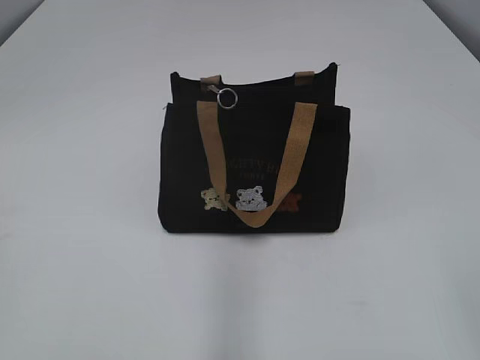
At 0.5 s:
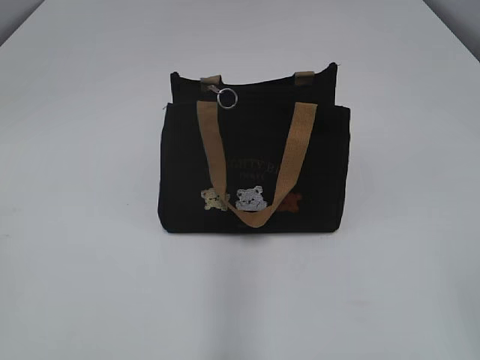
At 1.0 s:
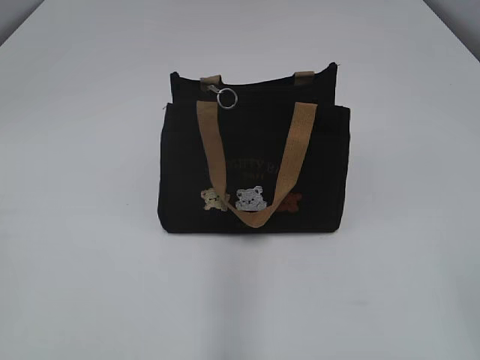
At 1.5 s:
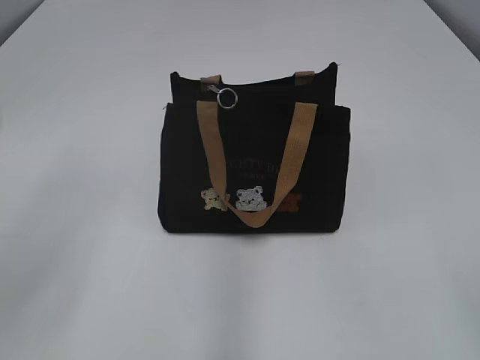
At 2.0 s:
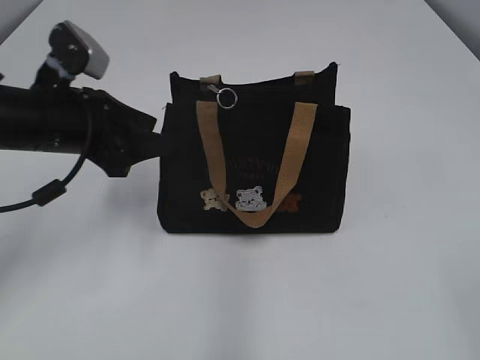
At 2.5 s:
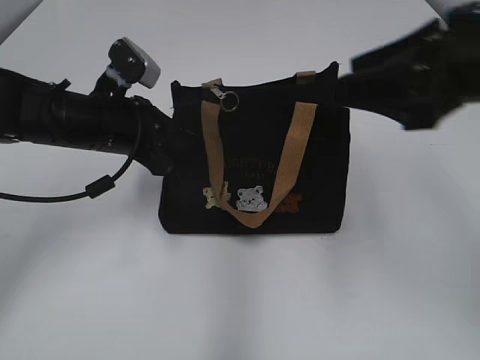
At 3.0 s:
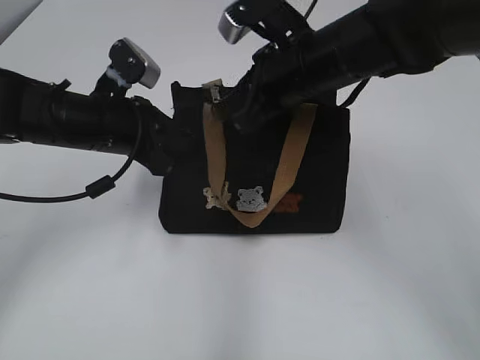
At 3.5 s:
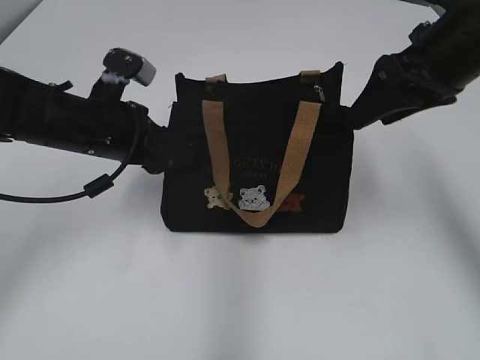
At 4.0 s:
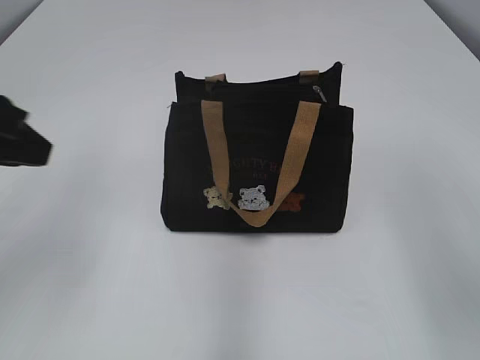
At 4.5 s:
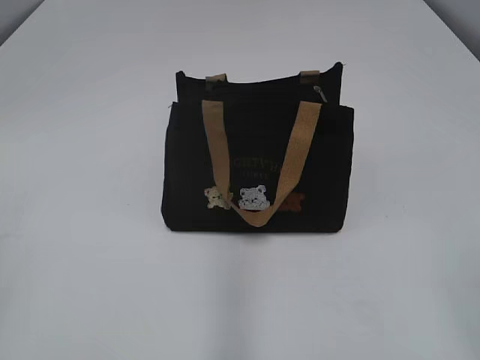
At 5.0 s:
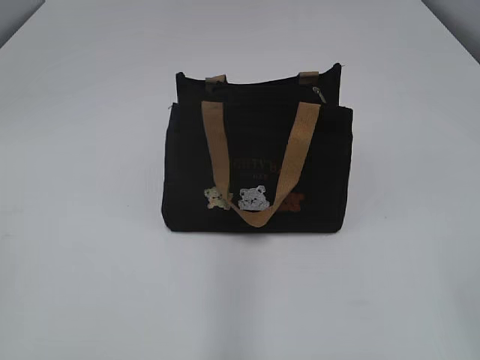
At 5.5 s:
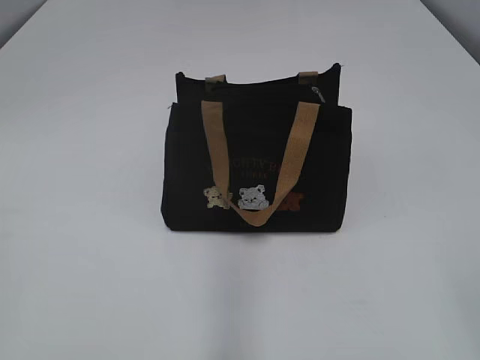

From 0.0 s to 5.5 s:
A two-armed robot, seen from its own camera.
Step, from 0.0 s to 3.0 s: Pull open the zipper with your right hand.
From 2.0 s to 3.5 s: The left gripper changes place by some 5 cm, and closes, then reopens. Meanwhile the right gripper heads forward, covering some 35 cm, and closes, then reopens.
From 3.5 s to 5.5 s: The left gripper goes about 35 cm backward and to the left. Meanwhile the right gripper goes roughly 35 cm backward.

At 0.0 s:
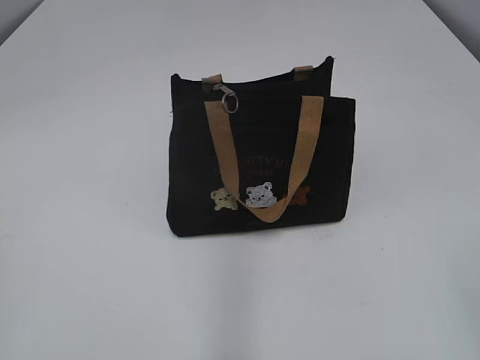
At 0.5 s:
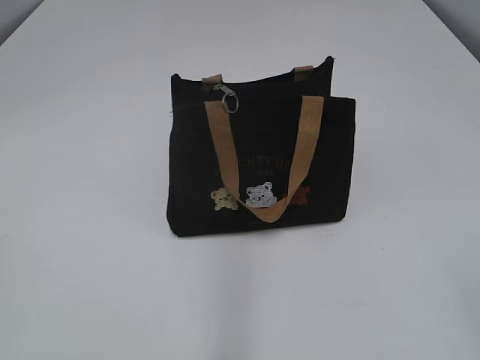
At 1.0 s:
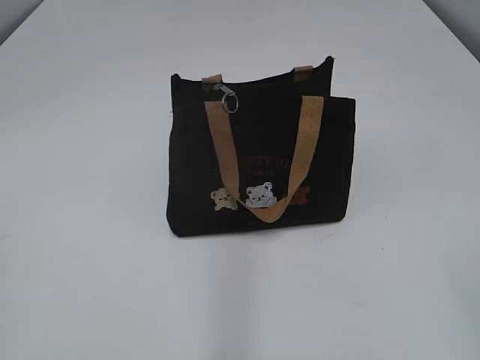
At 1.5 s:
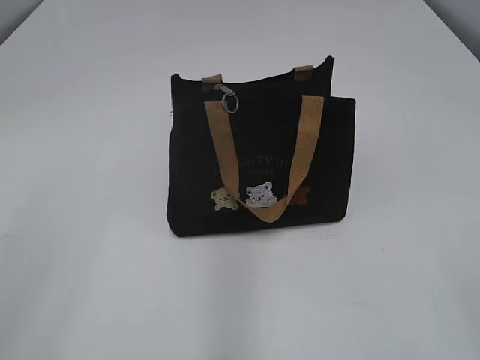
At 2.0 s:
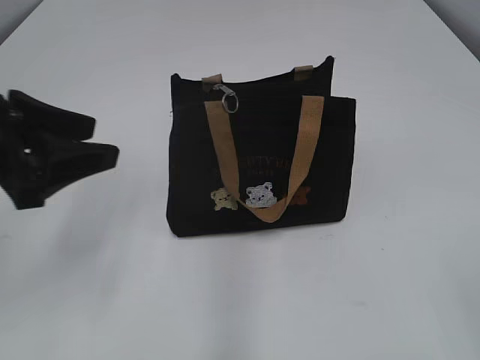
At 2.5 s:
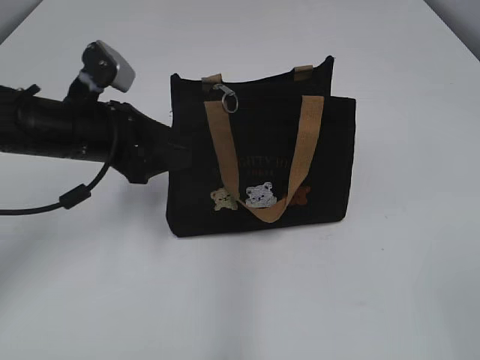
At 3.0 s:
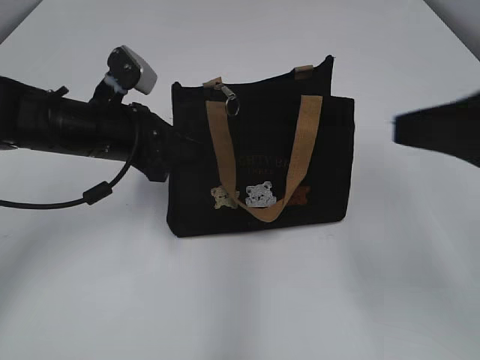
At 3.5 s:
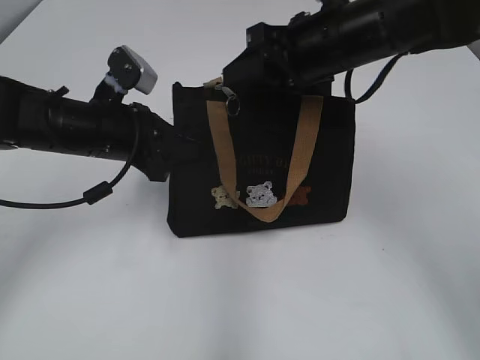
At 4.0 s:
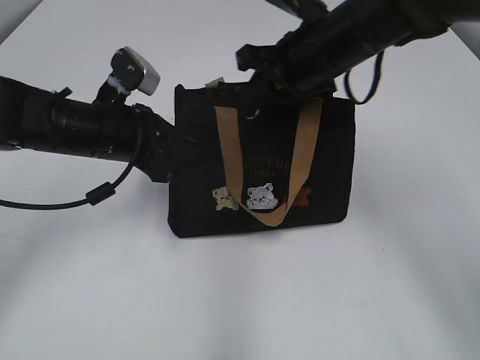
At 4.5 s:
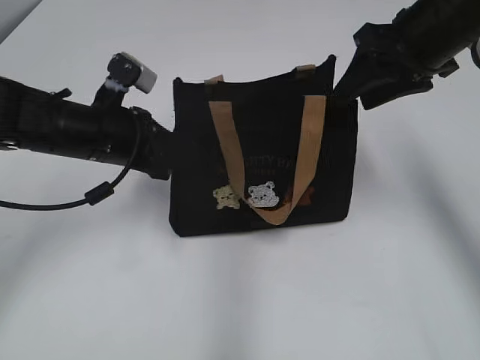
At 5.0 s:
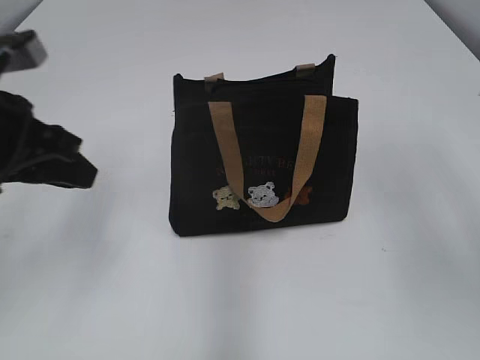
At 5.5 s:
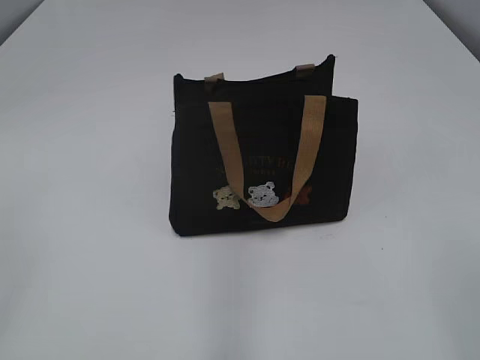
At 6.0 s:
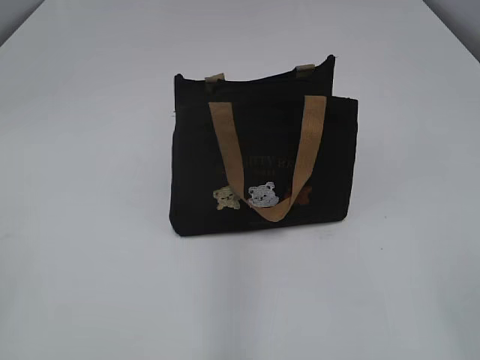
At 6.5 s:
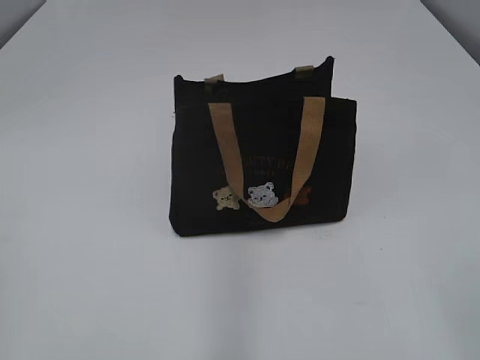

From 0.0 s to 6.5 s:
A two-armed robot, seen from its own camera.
Step, from 0.0 s to 4.0 s: Pull open the zipper with your right hand.
From 2.0 s to 4.5 s: The left gripper shifts approximately 20 cm forward, downward and to the right, and closes. Meanwhile the right gripper goes approximately 40 cm forward.
From 4.5 s to 6.5 s: The right gripper goes roughly 40 cm backward, and opens up; the left gripper travels backward and to the left by roughly 35 cm.
